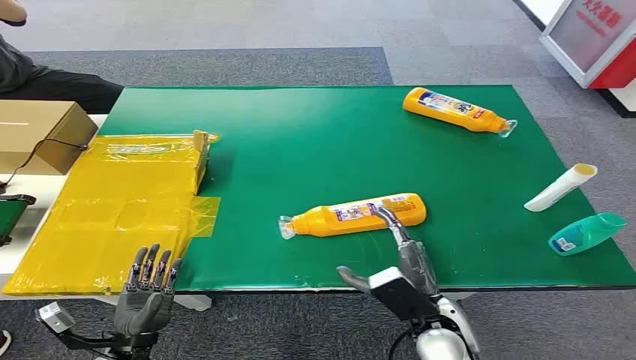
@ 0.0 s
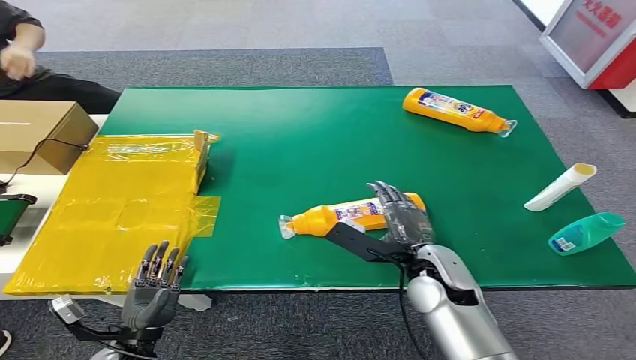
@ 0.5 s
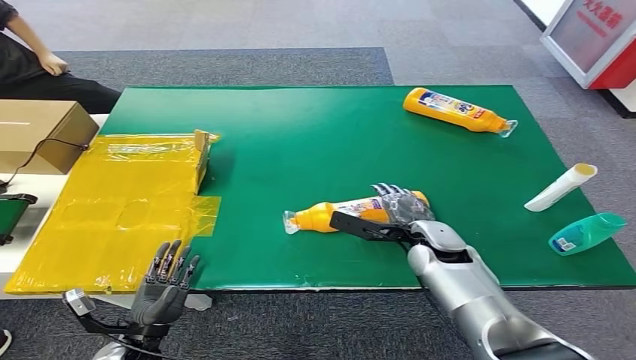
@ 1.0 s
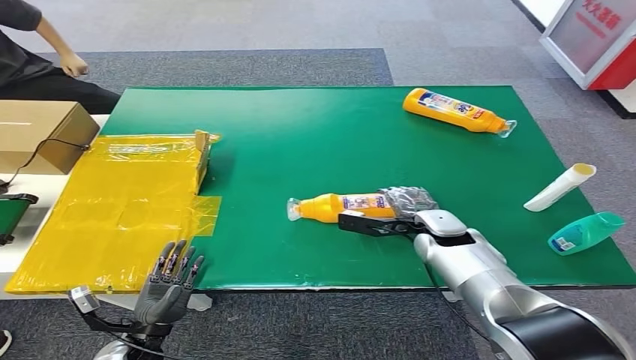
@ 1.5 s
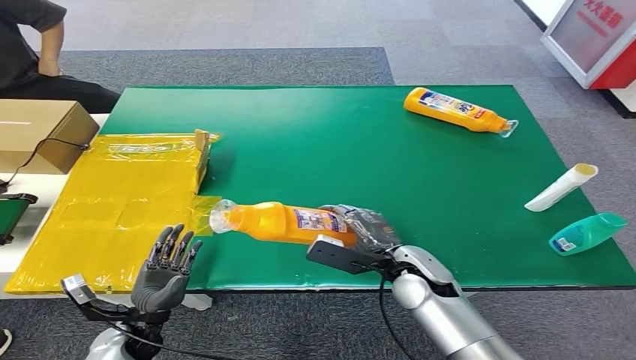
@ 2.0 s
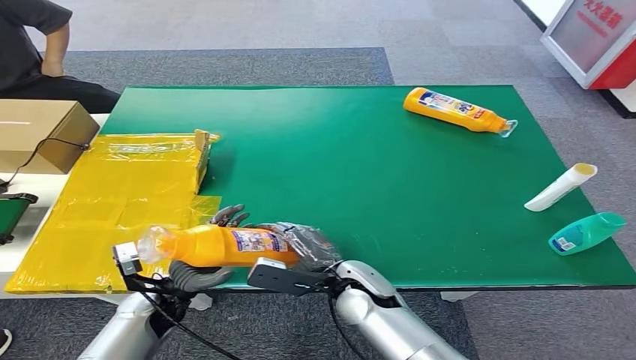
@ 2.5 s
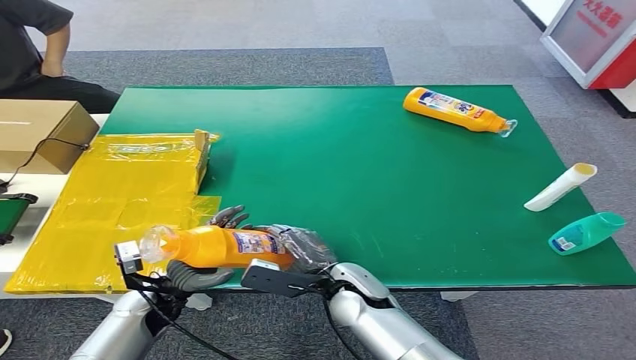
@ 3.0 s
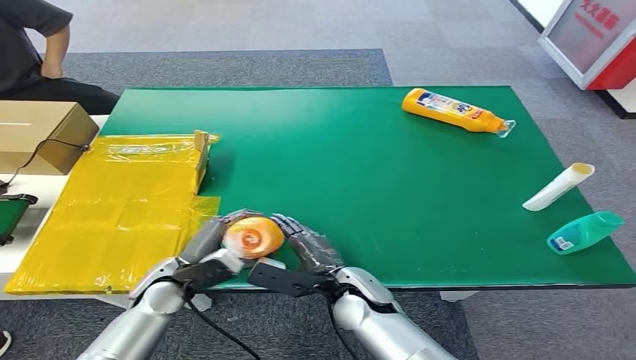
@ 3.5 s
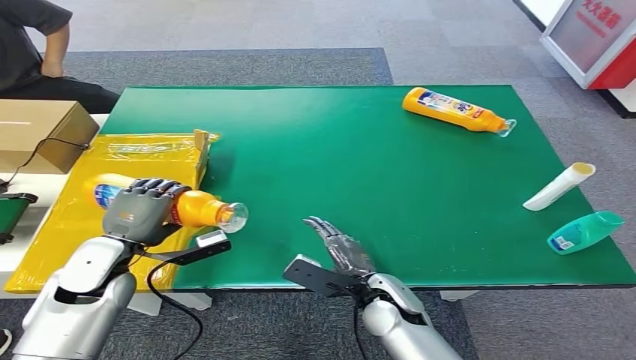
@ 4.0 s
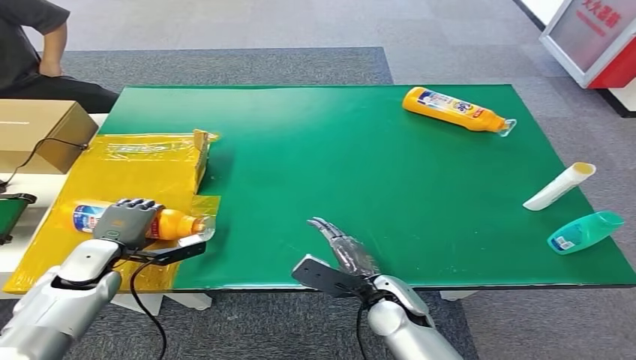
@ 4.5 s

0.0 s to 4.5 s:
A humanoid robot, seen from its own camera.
Step, 0.0 to 2.0 s: Pick up the bottle from the table.
Step, 2.5 to 4.5 s: Turn the bottle to the front side.
2.0 to 4.5 s: The left hand goes about 15 cm forward, upward and to the left. The right hand is displaced backward by roughly 5 cm.
